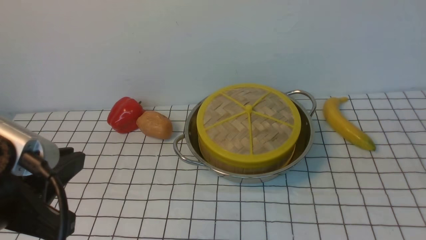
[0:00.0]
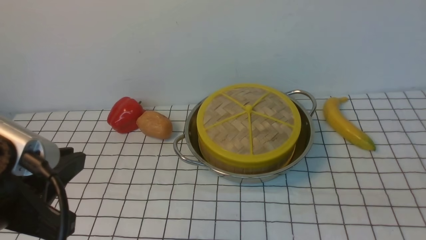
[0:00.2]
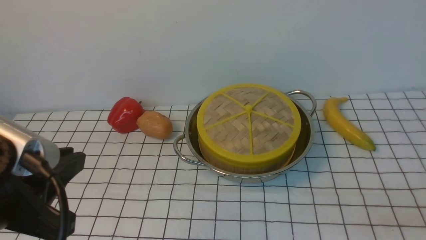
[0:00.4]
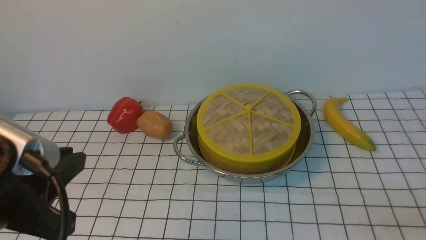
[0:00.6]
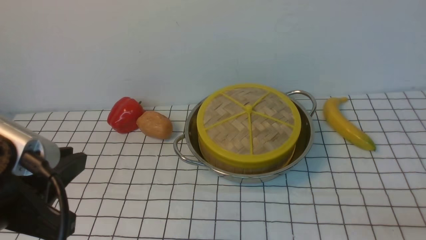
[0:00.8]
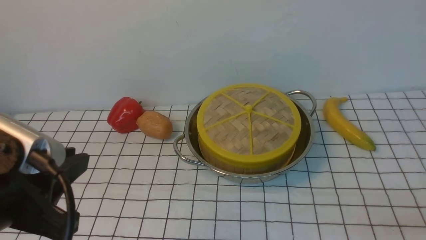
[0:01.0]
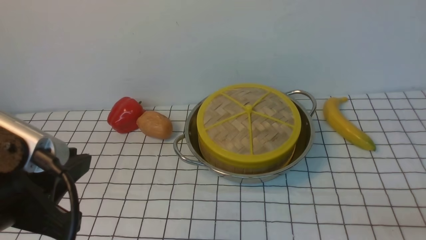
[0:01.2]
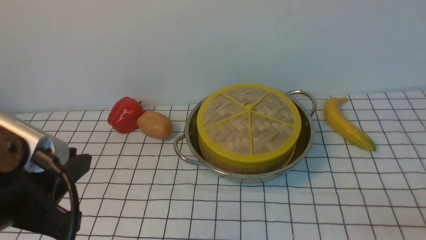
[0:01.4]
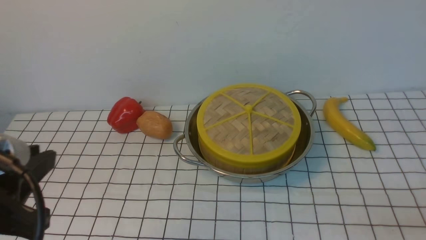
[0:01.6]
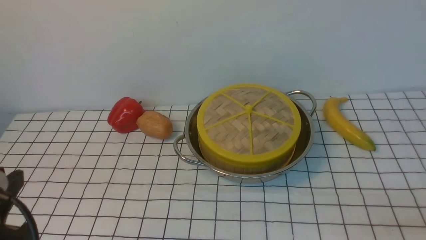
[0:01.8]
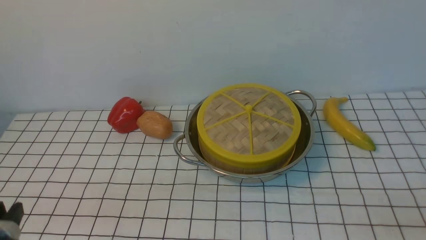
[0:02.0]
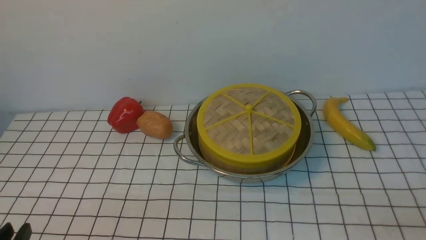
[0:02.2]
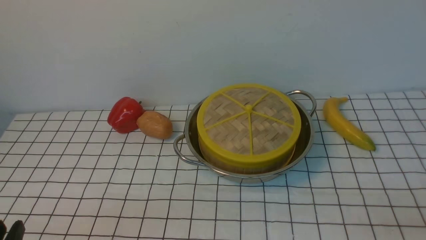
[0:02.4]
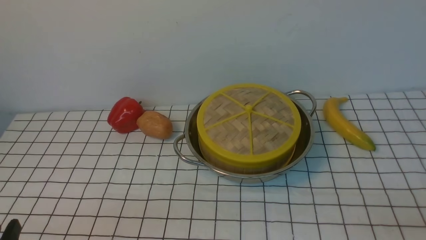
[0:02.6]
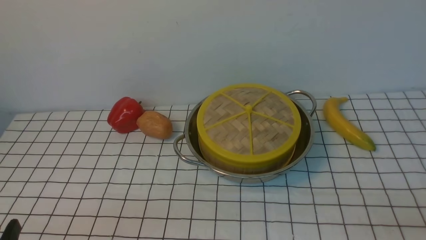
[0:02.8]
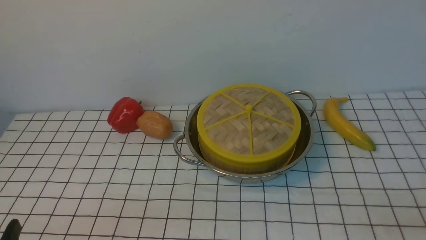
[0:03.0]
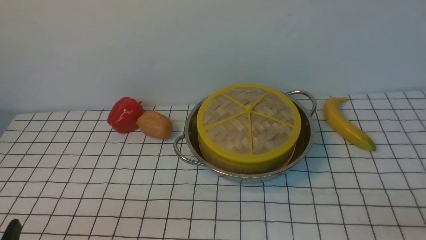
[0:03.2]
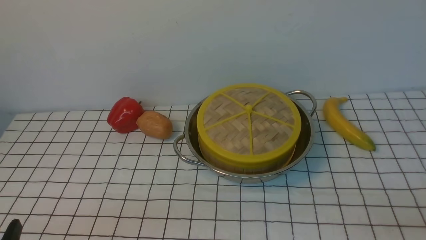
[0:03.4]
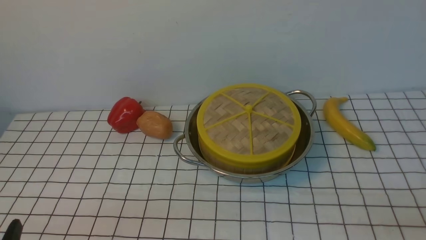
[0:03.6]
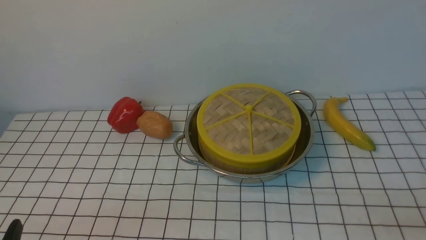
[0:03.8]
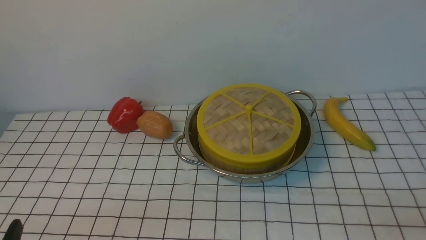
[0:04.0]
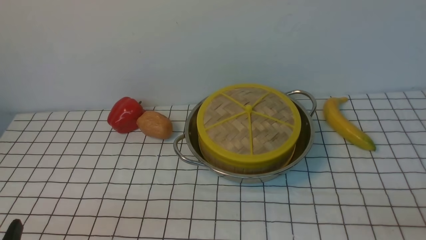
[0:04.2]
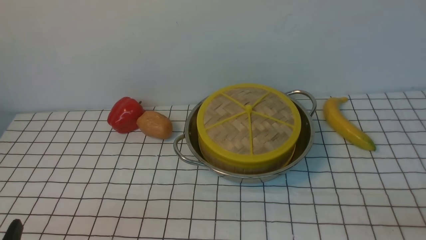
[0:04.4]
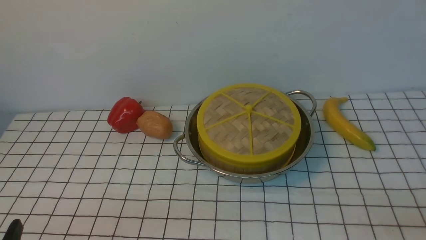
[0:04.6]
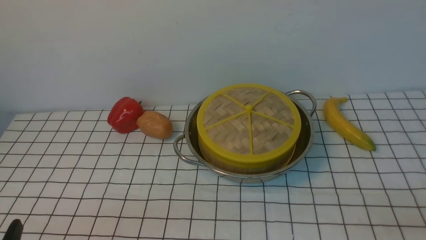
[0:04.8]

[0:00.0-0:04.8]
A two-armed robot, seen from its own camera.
Task of the whole recording: place the steamer in the pot on the white tablecloth, and put the lid on the steamer.
0:01.6 to 0:03.2: The left gripper heads downward and backward, covering about 15 cm.
0:03.2 to 0:04.8: The two grippers keep their place.
